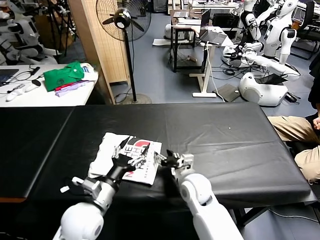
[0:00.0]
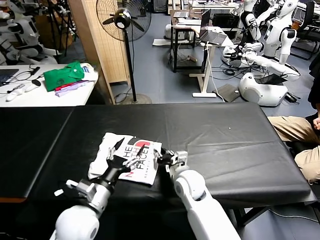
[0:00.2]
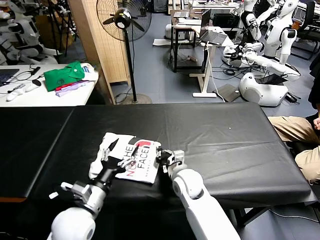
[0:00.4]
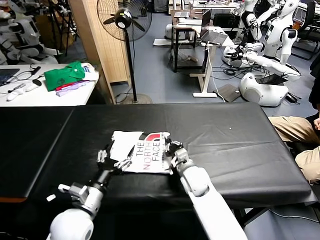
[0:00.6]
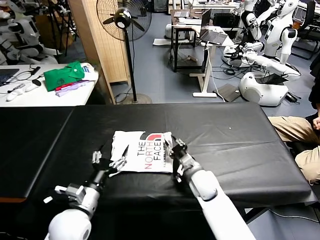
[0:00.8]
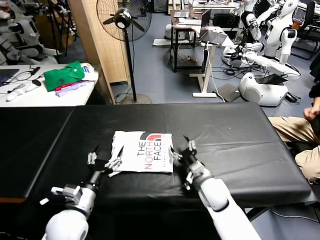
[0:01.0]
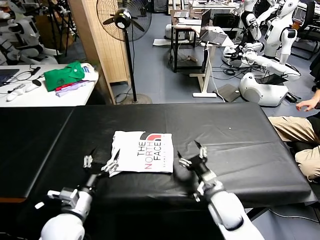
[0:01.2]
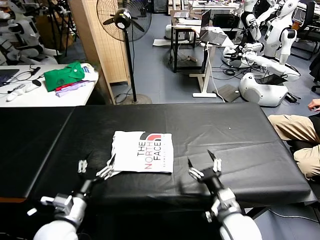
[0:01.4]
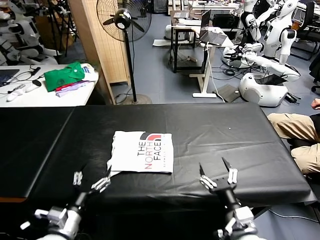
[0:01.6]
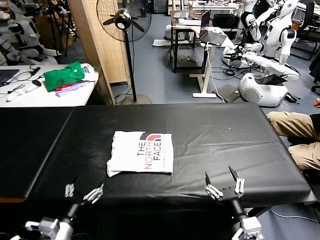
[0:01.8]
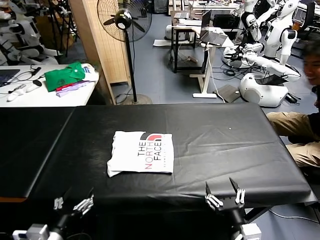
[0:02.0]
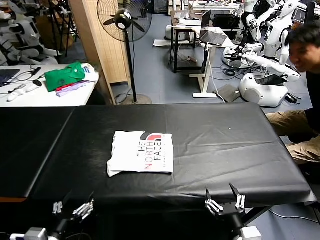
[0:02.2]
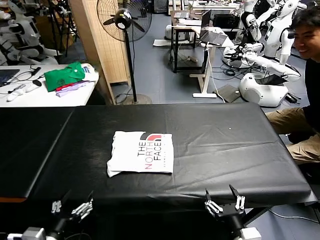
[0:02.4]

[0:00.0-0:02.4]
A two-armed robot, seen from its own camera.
Task of the whole recording: fold and organize the clothes.
Step, 0:00.0 to 0:00.8: Drag the clothes to the center of the table.
0:00.0 to 0:01.2: The right gripper is displaced to the right by roughly 5 cm, and closes, then reopens; the left gripper heads to the left, covering some 5 cm.
0:01.2 to 0:02.4: The right gripper travels backward by about 20 cm; the left gripper is displaced backward by some 10 cm.
